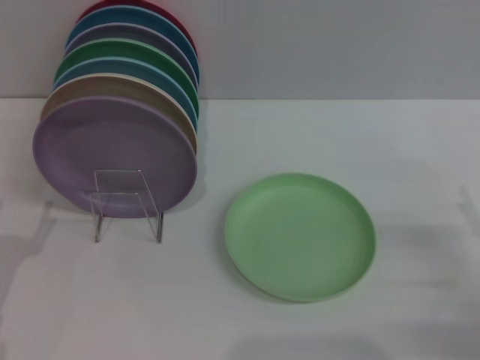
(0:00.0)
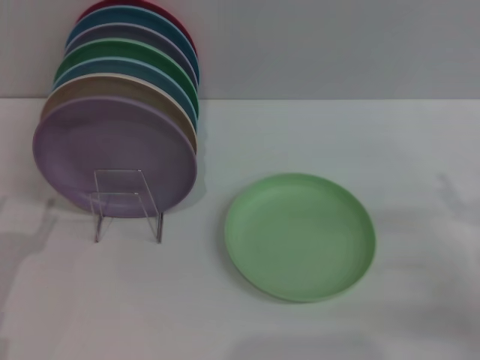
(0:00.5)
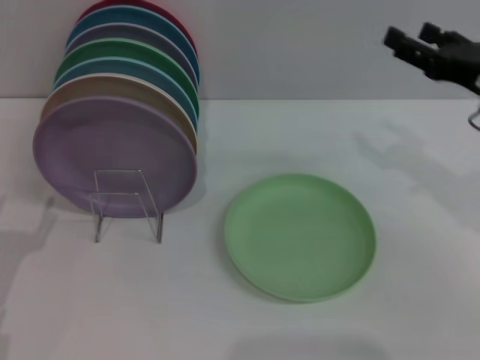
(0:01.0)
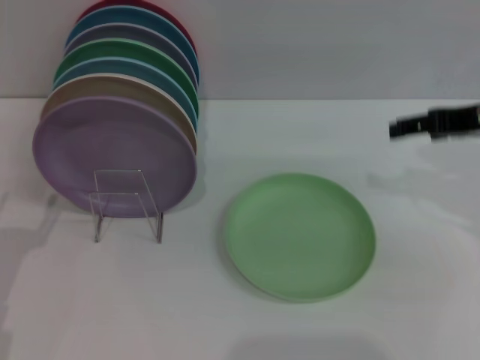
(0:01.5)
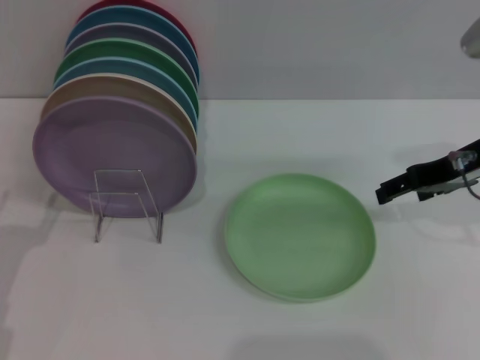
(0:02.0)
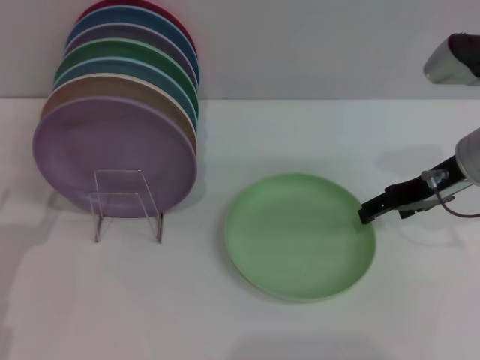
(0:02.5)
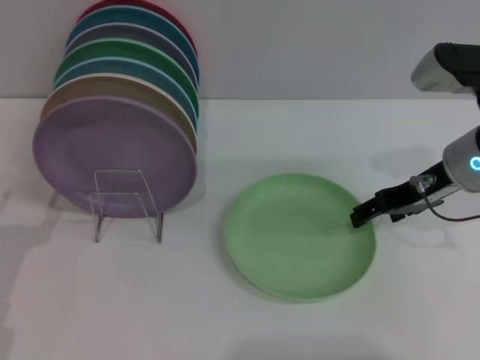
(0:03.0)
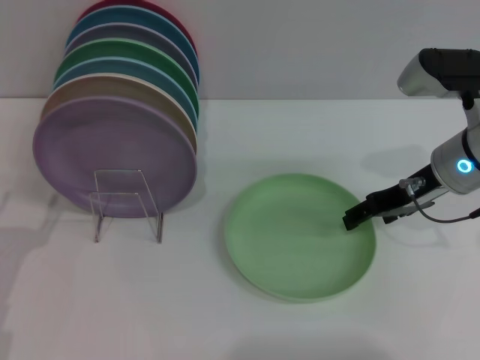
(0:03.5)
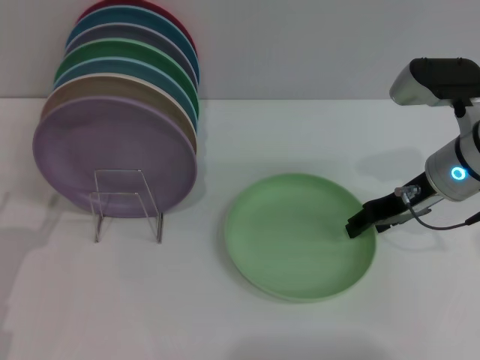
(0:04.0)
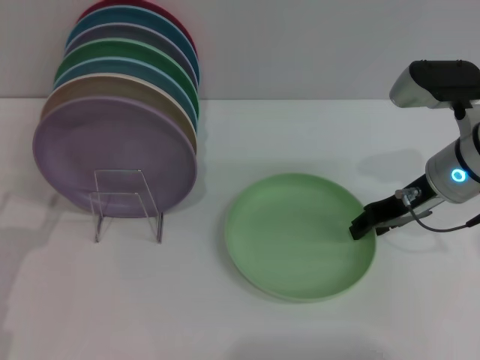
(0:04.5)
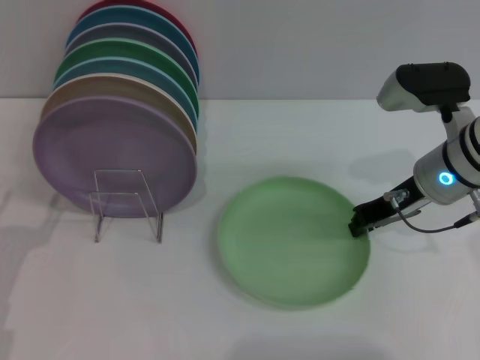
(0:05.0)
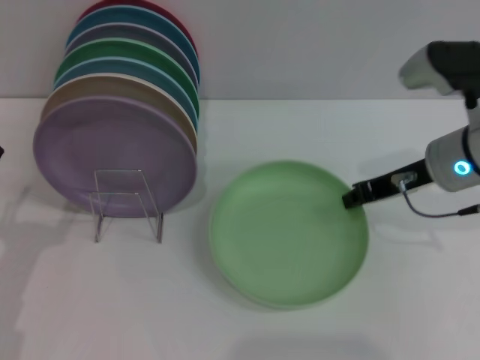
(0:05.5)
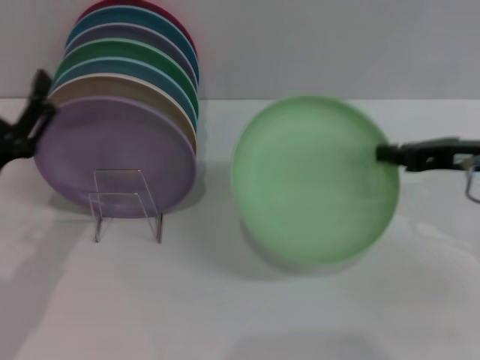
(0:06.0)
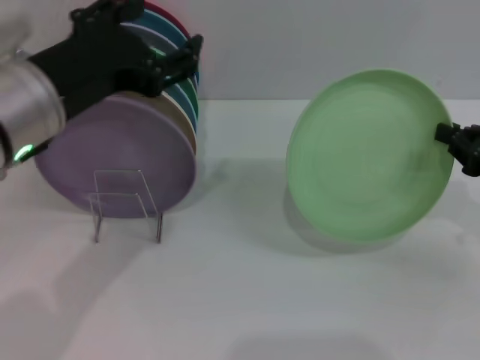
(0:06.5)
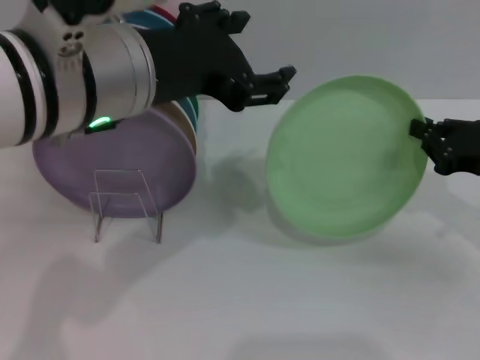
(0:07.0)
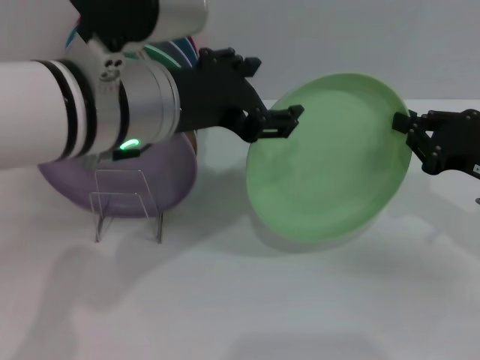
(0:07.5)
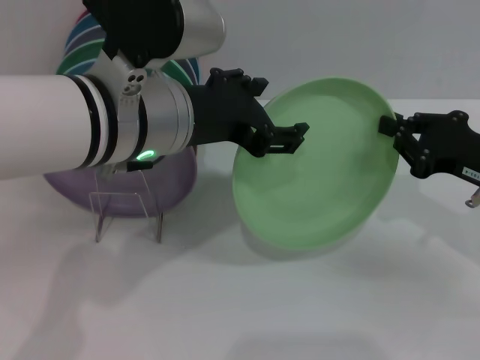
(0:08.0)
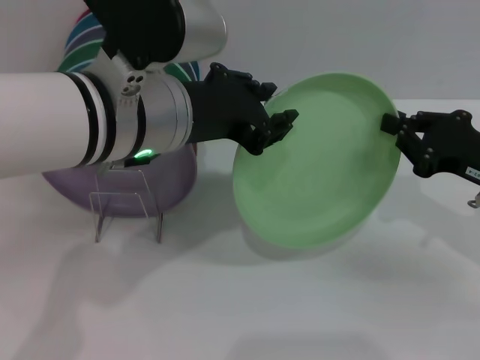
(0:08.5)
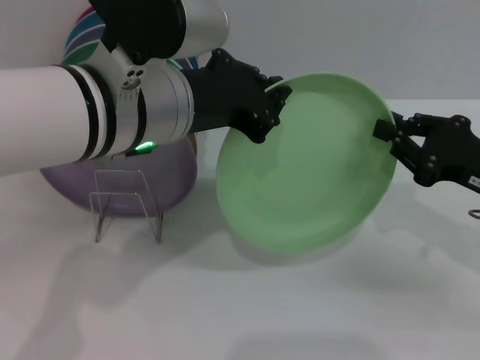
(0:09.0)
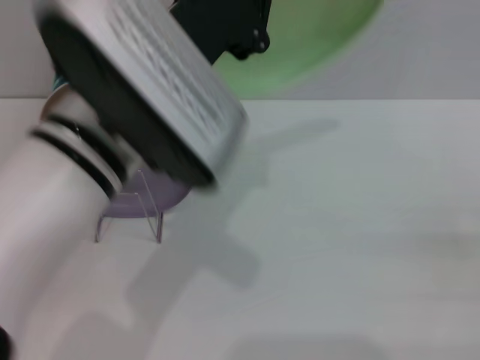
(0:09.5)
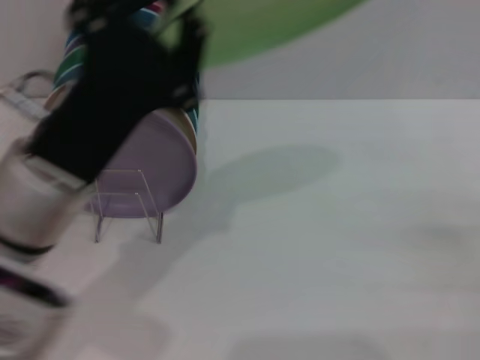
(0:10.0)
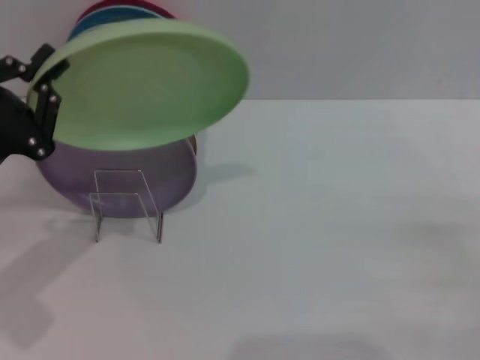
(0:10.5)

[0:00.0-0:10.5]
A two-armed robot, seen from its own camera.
Task of the whole recording: Grip the plate with one hand, pass it to the other, then set it on the shelf.
Step, 0:00.0 to 0:06.0: Pick up the plate with the right gripper.
Step, 0:06.5 to 0:09.0: Pass the plate from the right gripper to the left gripper.
0:00.0 to 0:02.0: The right gripper moves forward, upward and to the left, roughly 20 cm.
0:02.0 to 0:04.0: The right gripper heads downward, covering some 5 cm.
0:04.0 to 0:06.5: The left gripper goes approximately 25 cm upward and to the right. The right gripper is displaced to the right and backward by some 15 cm, and closes.
0:06.5 to 0:08.5: The left gripper travels to the right by roughly 5 cm.
0:08.5 to 0:10.5: The left gripper goes approximately 20 cm to the left and downward, and closes its fingers. The right gripper moves backward and to the right, some 15 cm, and opens.

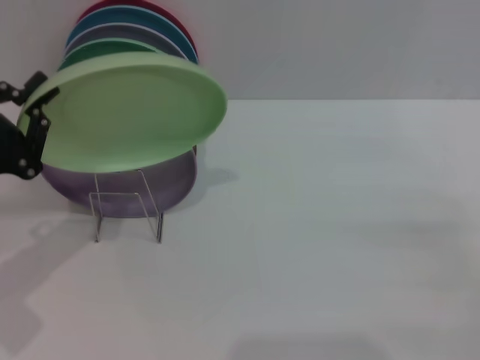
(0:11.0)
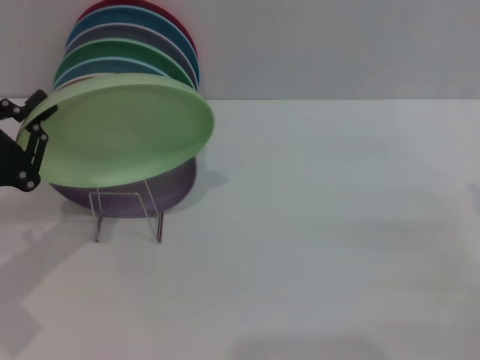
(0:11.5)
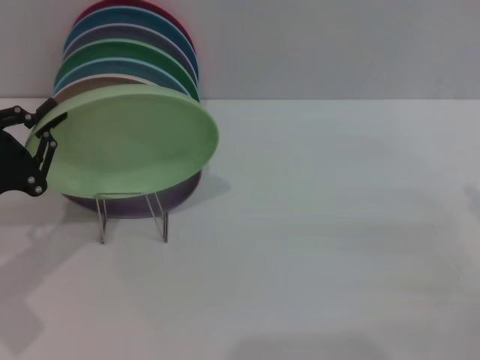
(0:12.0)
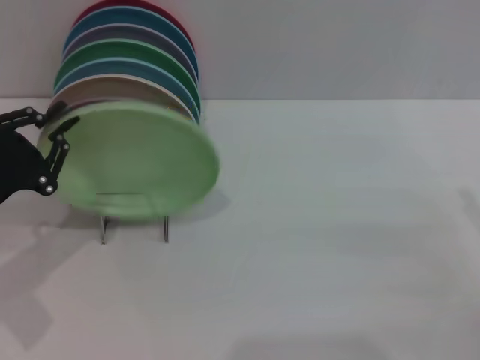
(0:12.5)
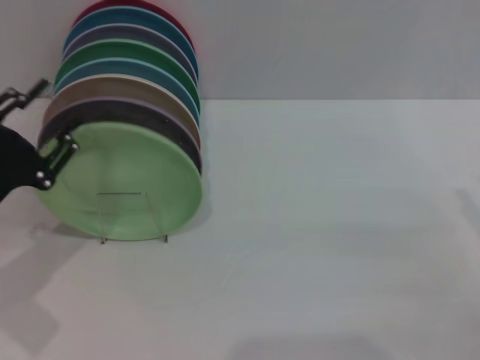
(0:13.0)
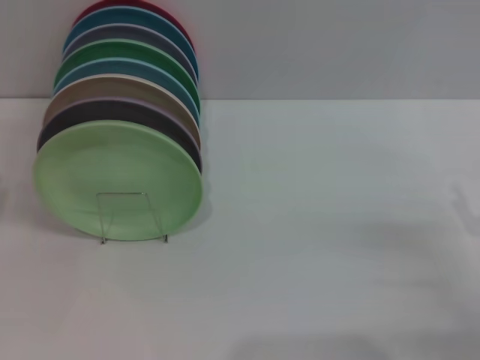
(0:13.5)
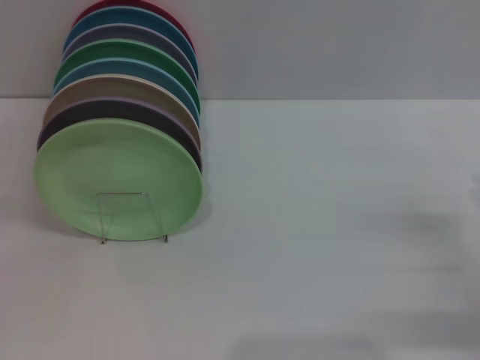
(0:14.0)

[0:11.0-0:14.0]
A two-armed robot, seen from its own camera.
Task of the whole recording: Grip the plate with one hand, pass it to the other, then set it on the shelf.
Step, 0:11.0 to 0:13.0: Place the plate on the shelf with the left gripper.
0:11.0 to 0:12.5: The grippers make only small movements.
0:12.5 to 0:14.0: The left gripper ends up approximately 10 cm from where it was, and opens.

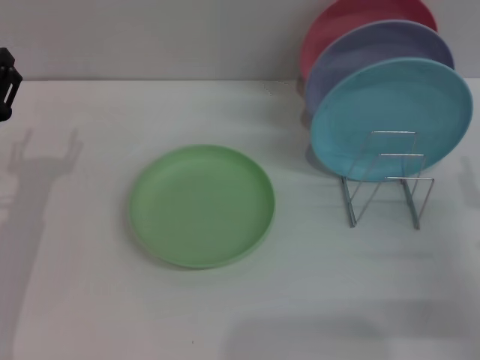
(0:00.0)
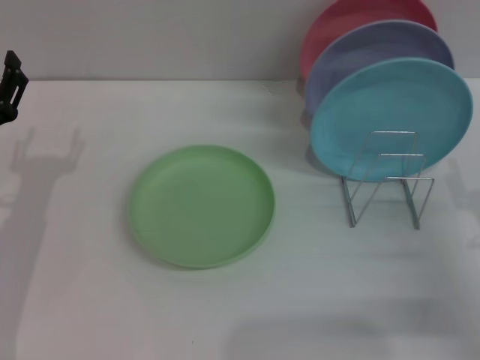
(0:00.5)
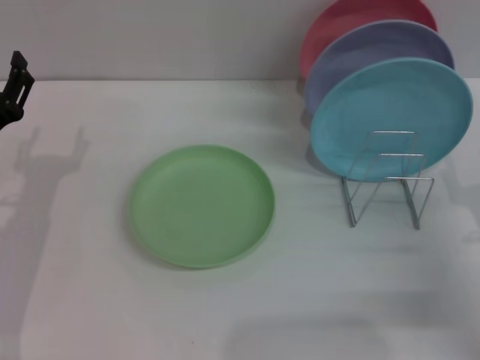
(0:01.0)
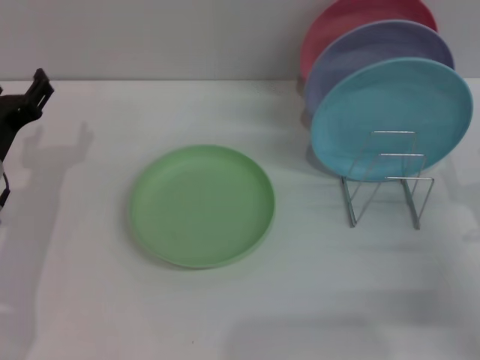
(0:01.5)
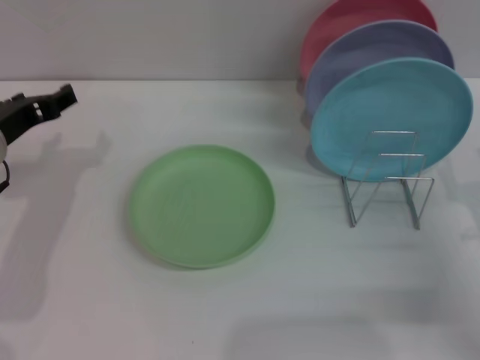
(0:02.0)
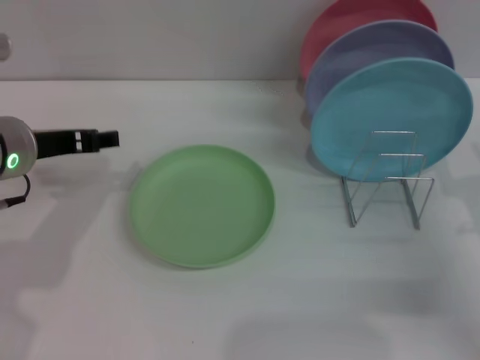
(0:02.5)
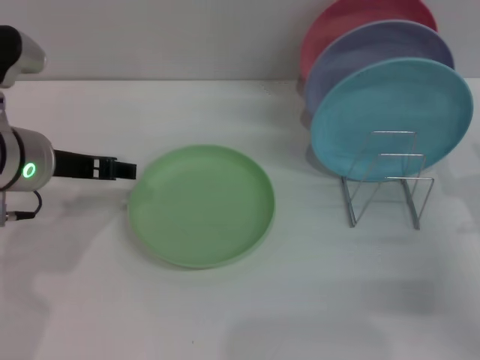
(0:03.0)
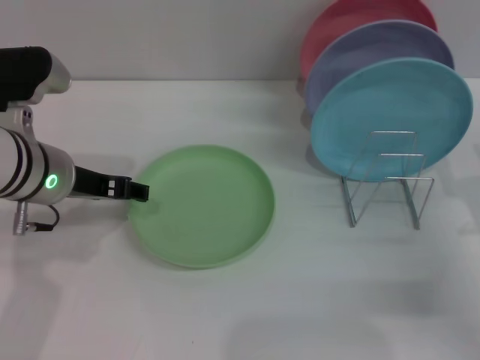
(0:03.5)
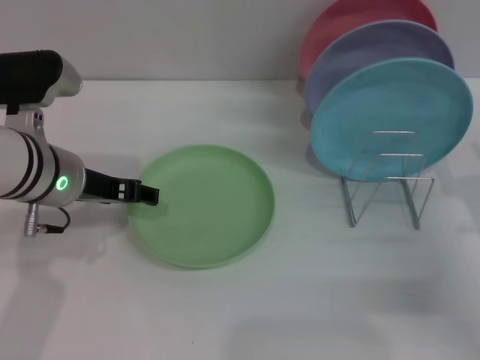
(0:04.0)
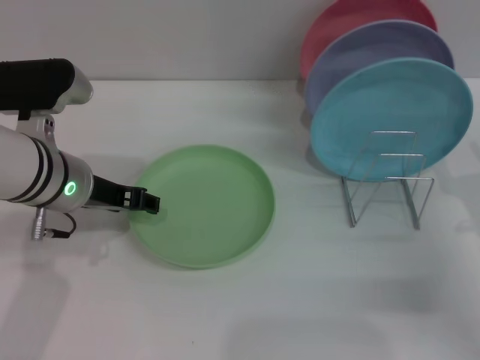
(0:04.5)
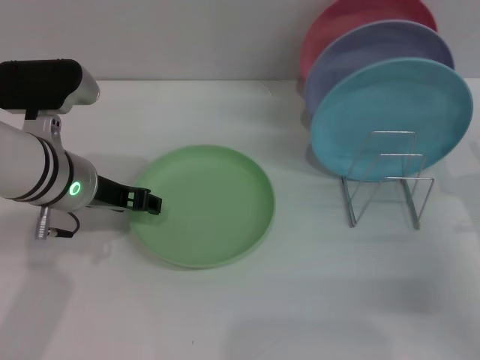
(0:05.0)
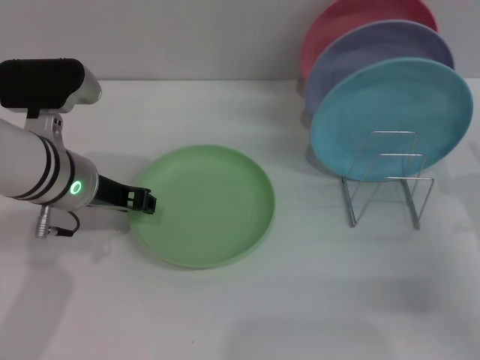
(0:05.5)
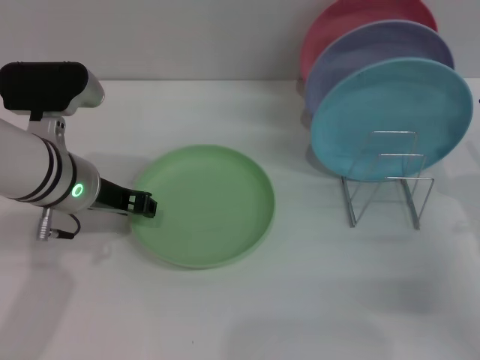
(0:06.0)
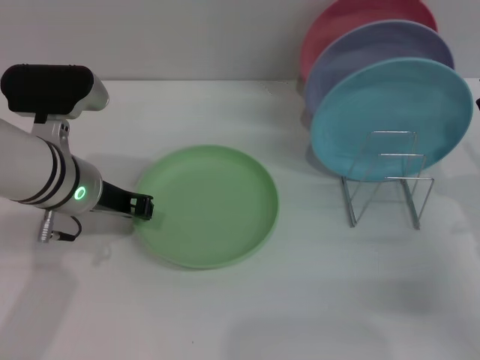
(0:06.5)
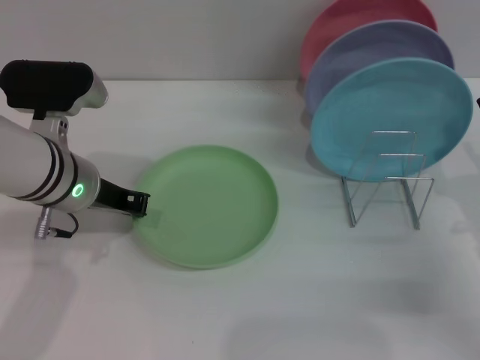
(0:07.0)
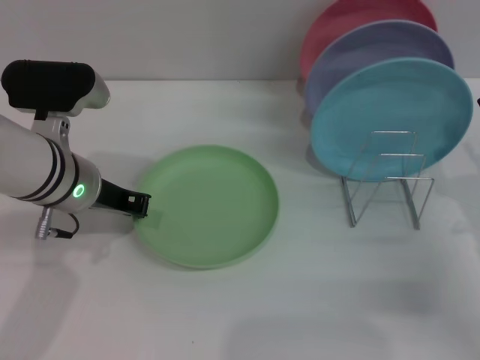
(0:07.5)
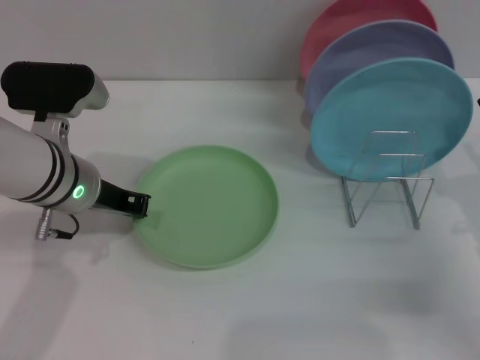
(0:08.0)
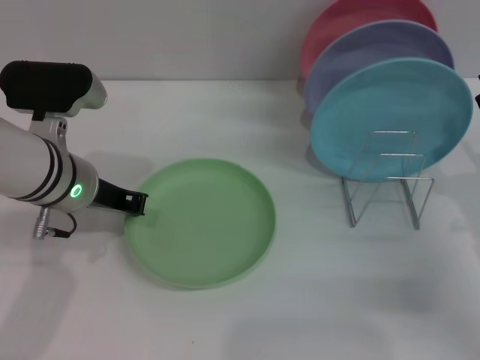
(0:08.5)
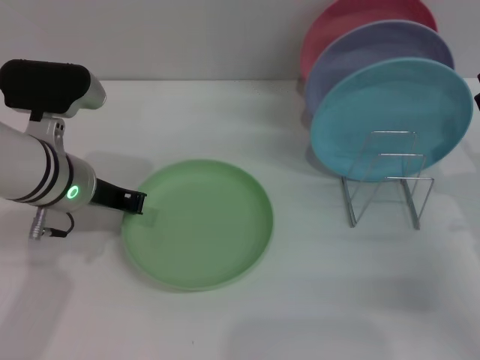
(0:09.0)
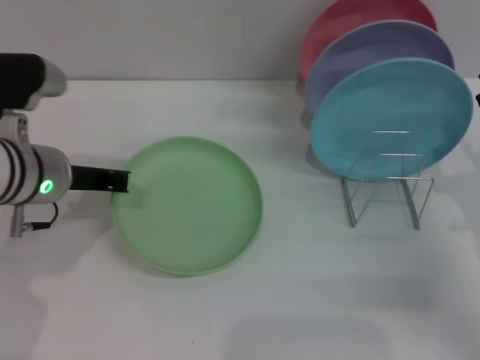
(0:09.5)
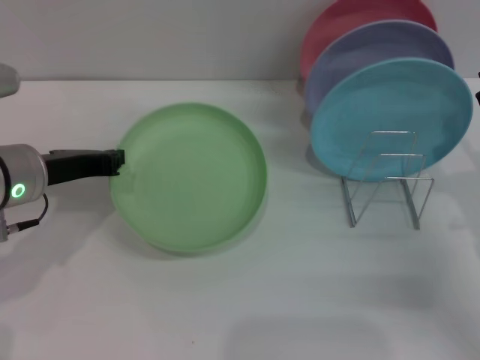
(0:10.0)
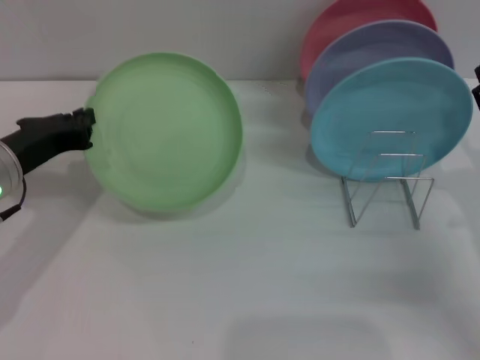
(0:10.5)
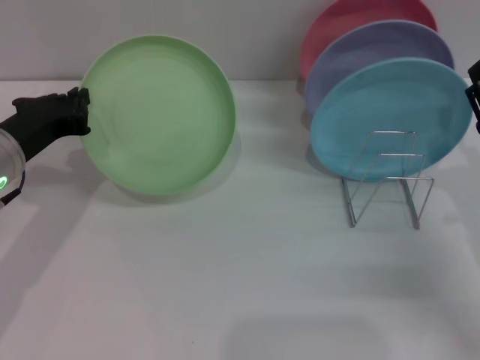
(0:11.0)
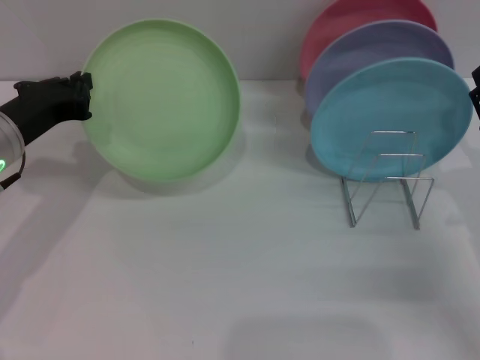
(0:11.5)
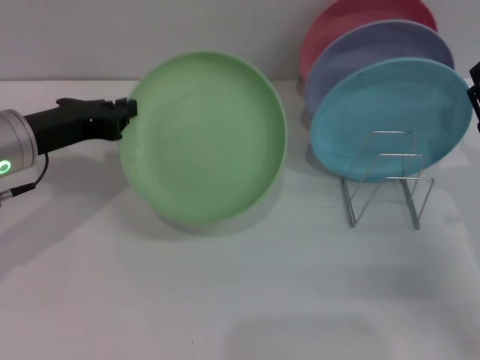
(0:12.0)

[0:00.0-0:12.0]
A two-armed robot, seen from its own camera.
Task of the whole recording: Grip the plate with one hand, pass it to the other, then set it on the shelf.
Step, 0:00.0 to 0:10.5: Pick up the plate with the left gripper.
0:00.0 to 0:02.0: The left gripper travels upward by about 5 cm.
0:02.0 to 0:04.0: The left gripper moves to the right, some 5 cm.
0:04.0 to 0:06.0: The left gripper closes up.
0:06.0 to 0:08.0: Neither gripper changes place.
0:08.0 to 0:10.0: The left gripper heads to the left, covering approximately 5 cm.
